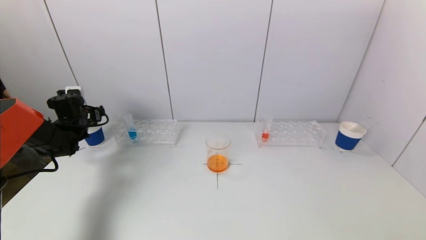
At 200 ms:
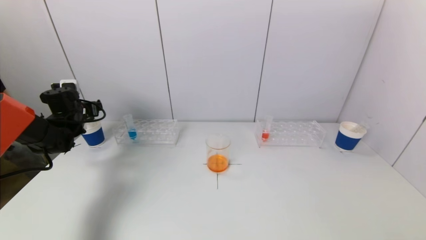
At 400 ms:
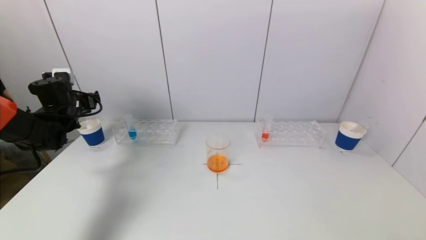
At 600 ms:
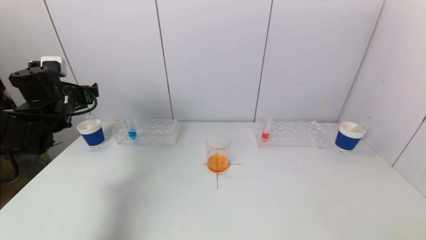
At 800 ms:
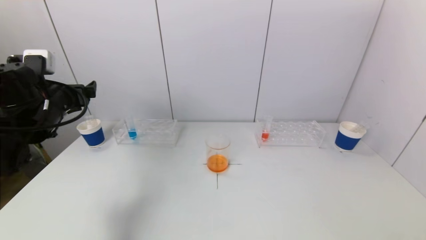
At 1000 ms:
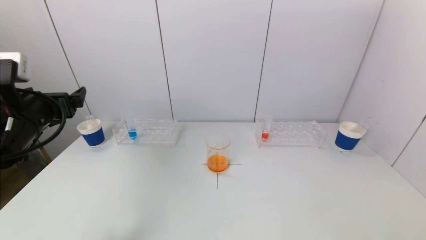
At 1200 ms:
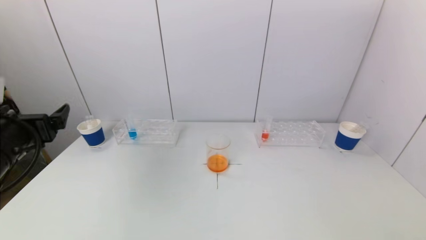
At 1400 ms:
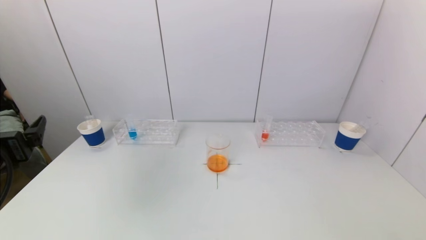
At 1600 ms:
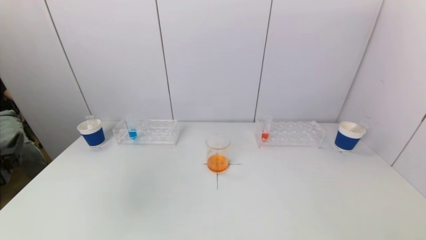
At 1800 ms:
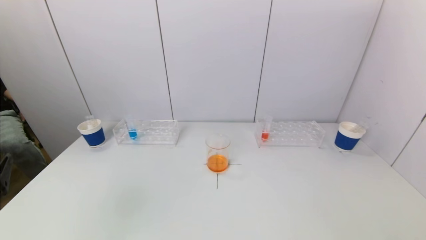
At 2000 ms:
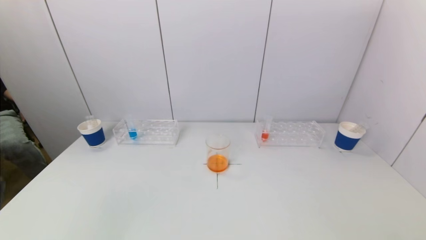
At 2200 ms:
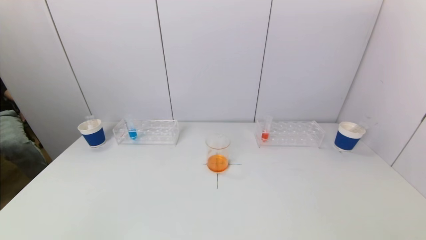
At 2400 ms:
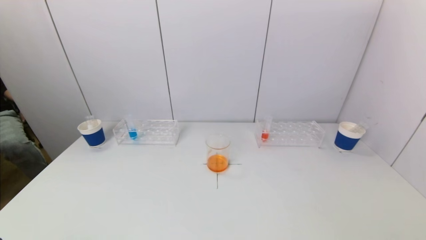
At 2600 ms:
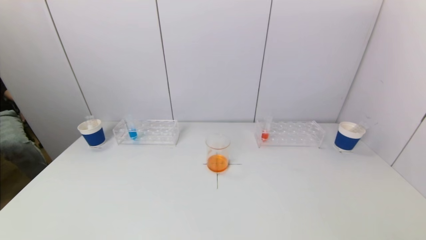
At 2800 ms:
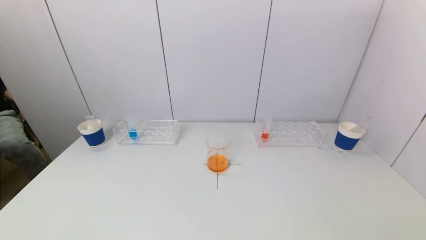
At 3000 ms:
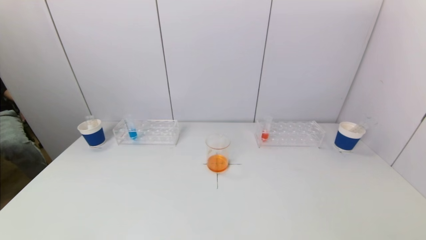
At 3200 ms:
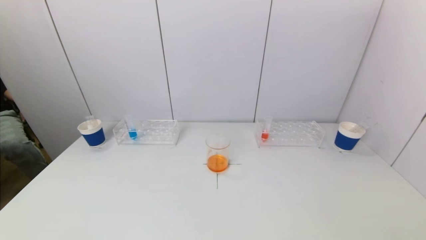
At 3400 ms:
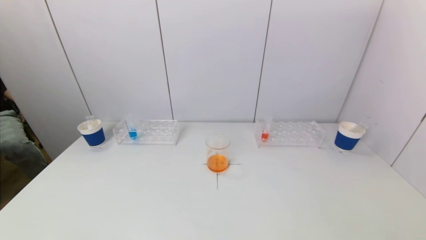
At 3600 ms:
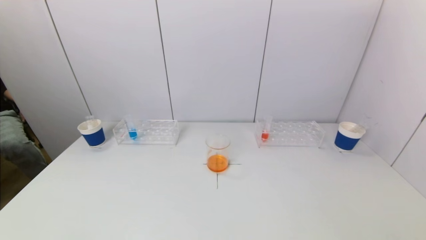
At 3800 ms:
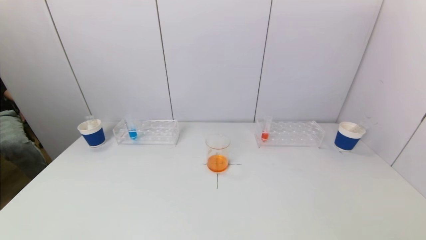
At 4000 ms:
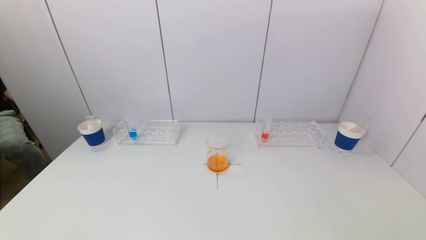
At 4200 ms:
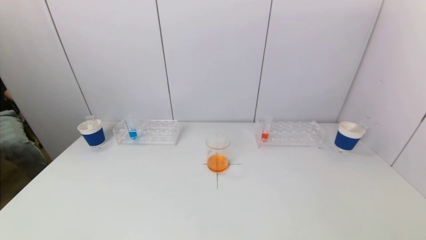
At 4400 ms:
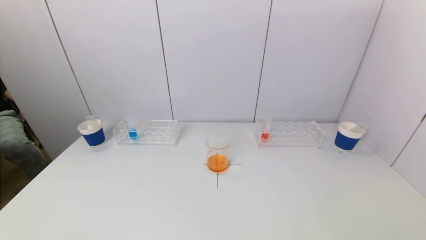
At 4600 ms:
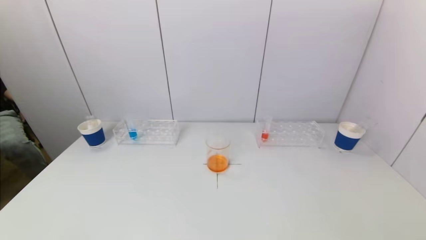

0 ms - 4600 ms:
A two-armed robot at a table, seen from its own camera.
Task of the whole recording: pick up a test tube with pigment on left test tube rack and a test tube with pigment on right test tube rack by grippers and pour them into the beaker.
0 ms - 1600 ms: The left gripper shifts some 35 cm backward.
1600 ms - 3000 ms: The left gripper shifts some 20 cm backward and downward.
